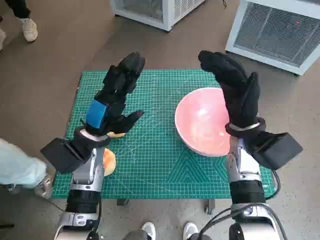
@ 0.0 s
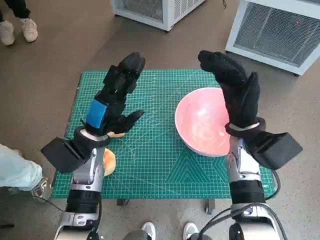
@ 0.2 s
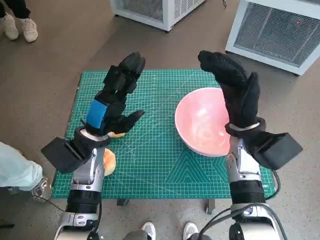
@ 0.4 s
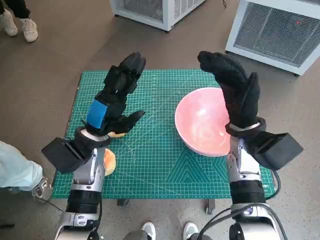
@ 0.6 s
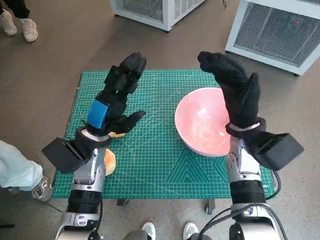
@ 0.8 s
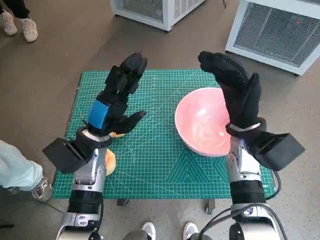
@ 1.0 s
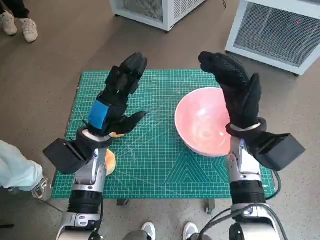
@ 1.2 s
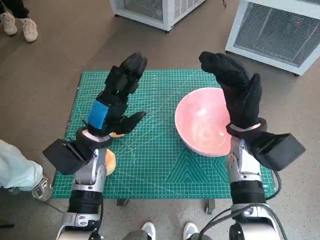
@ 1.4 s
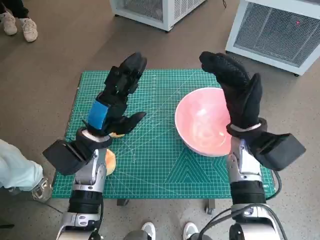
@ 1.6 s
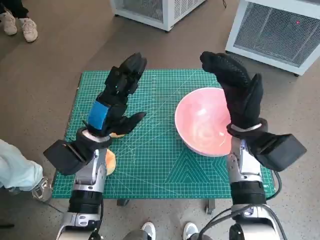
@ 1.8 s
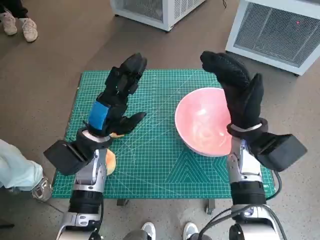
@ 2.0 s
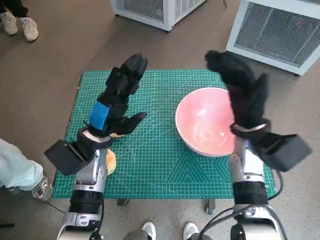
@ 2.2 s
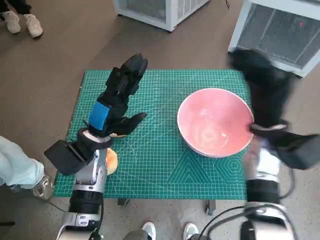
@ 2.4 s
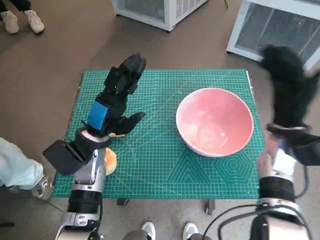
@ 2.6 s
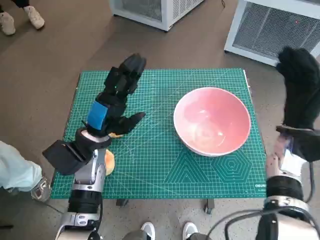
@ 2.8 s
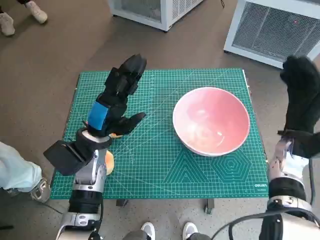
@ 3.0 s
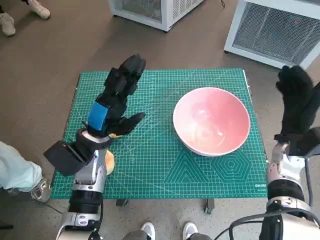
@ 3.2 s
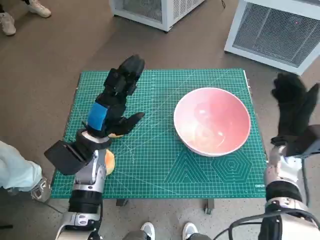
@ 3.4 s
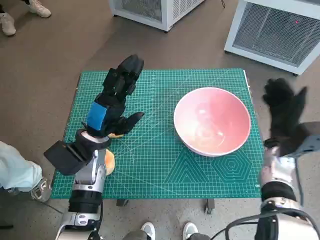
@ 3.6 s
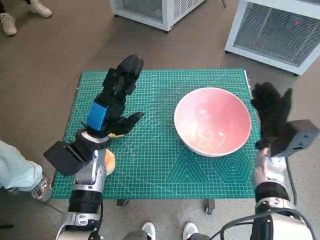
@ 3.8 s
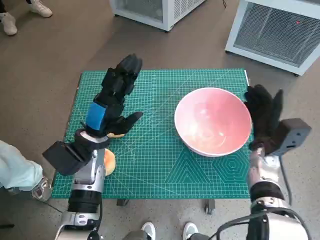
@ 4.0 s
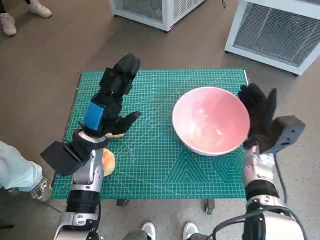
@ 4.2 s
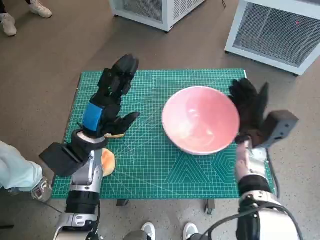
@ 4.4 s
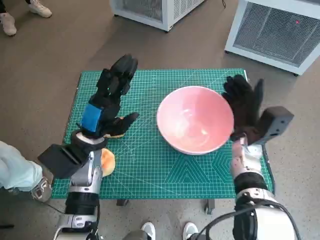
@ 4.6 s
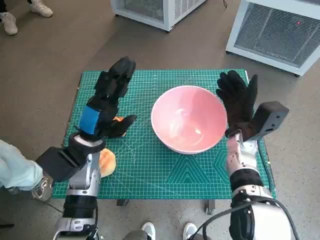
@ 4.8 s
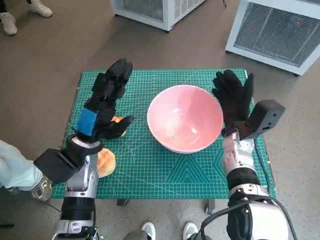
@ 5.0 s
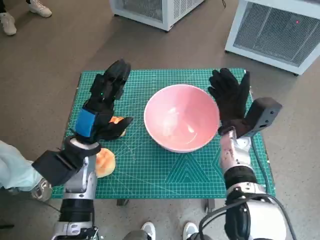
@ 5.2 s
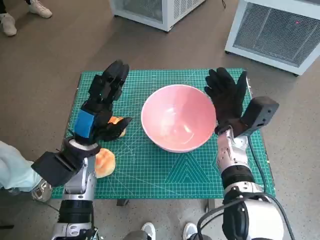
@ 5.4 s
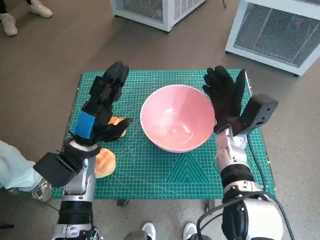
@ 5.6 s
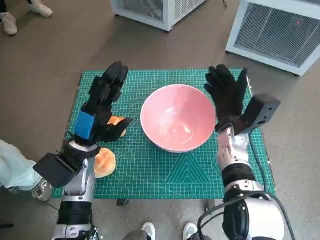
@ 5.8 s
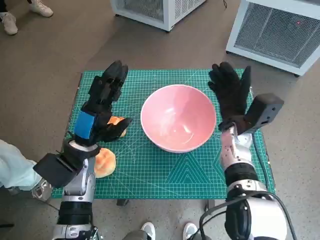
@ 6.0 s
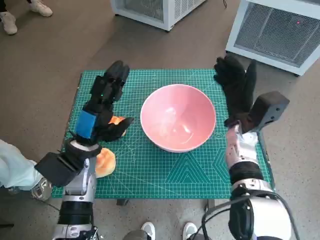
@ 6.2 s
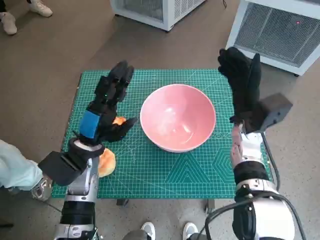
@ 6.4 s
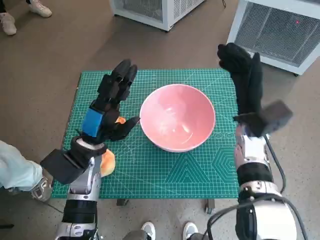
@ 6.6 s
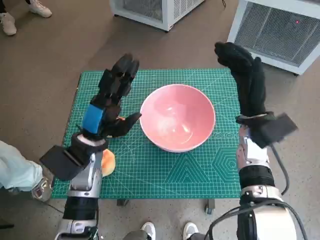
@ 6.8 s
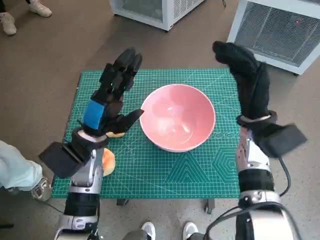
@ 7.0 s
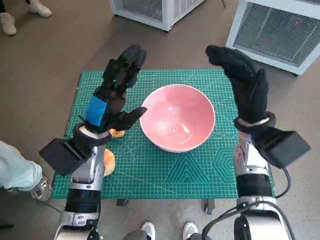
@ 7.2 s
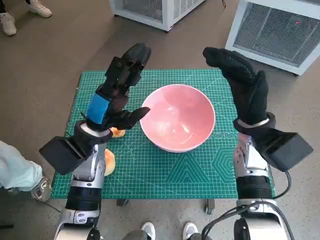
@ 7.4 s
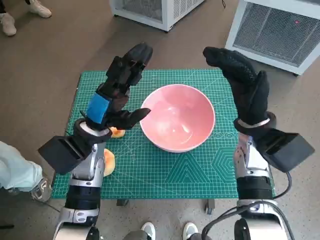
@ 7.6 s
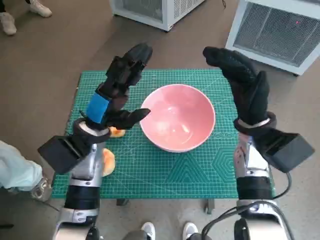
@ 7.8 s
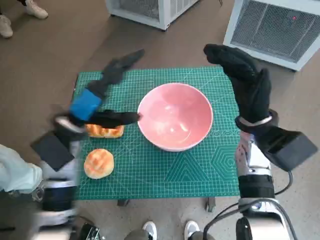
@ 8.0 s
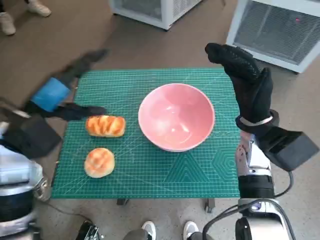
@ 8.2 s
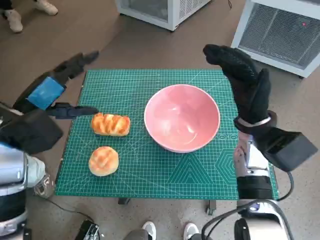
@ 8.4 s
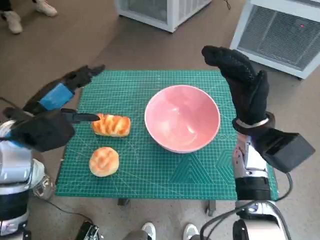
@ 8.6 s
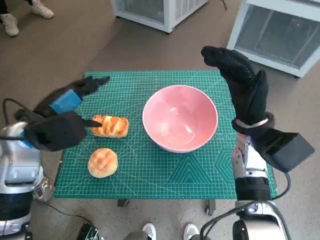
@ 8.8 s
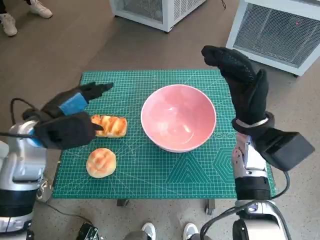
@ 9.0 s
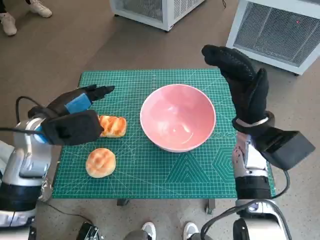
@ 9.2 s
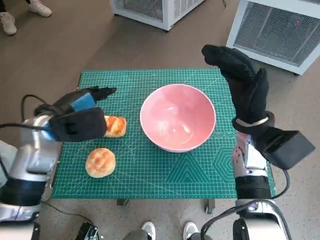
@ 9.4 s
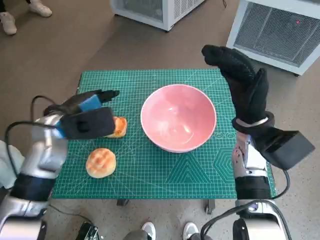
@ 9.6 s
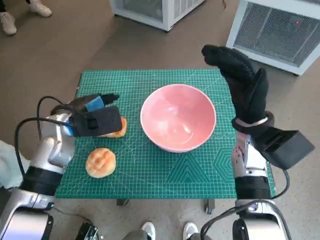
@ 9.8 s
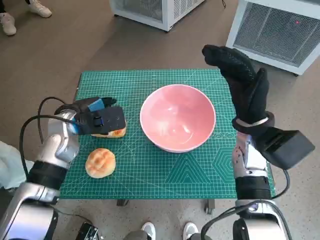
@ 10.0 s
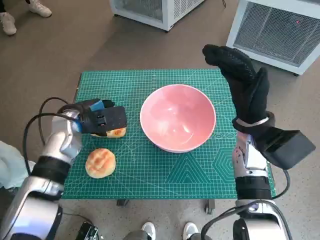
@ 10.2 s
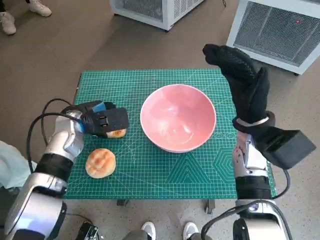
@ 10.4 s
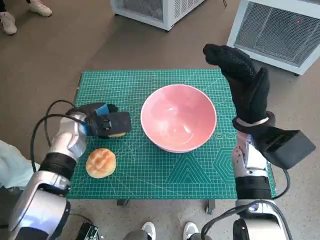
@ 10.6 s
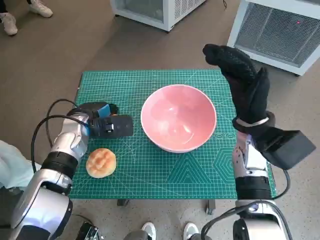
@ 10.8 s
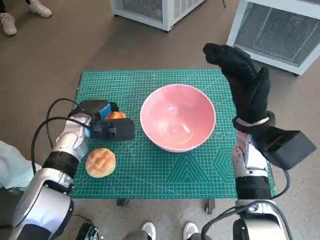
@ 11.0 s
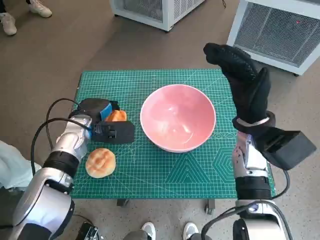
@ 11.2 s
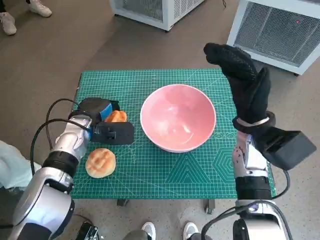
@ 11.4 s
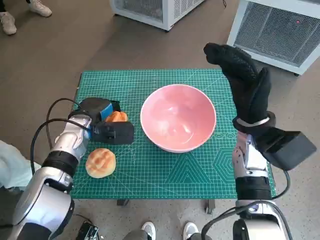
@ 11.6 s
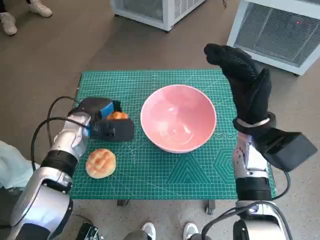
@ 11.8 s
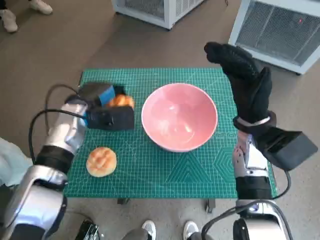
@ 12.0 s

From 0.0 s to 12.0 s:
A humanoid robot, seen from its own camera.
Task of the whole recording: Push the bowl into the center of the table and put the bread into the bowl.
Step, from 0.0 s to 5.8 s: Move the pink bowl to the center of table with right hand.
Step, from 6.0 s to 10.8 s: Grasp the long bread with left hand.
From 1.6 s to 3.0 s: The right hand is displaced to the right by approximately 10 cm.
From 3.0 s to 4.4 s: The right hand is displaced to the left by approximately 5 cm.
From 4.4 s to 6.0 s: The right hand ends up roughly 5 cm from where it was.
From 6.0 s to 7.6 s: The right hand heads upward, covering some 5 cm.
From 7.6 s to 9.0 s: The left hand heads to the left, covering about 10 cm.
From 9.0 s to 10.4 s: The left hand travels downward and forward by roughly 10 cm.

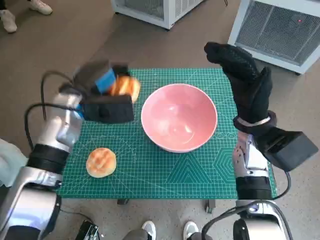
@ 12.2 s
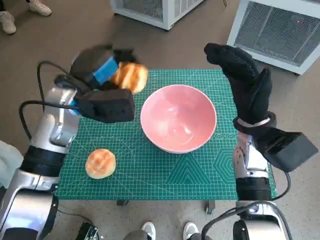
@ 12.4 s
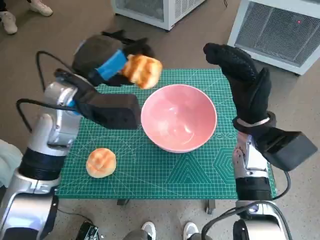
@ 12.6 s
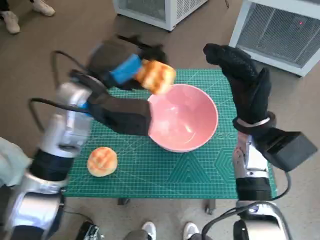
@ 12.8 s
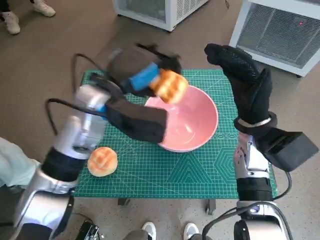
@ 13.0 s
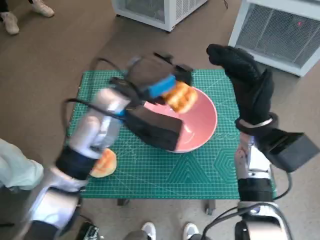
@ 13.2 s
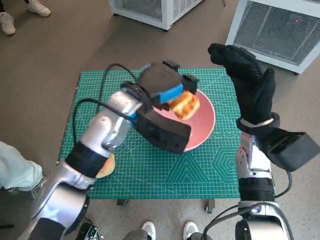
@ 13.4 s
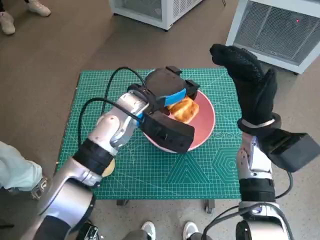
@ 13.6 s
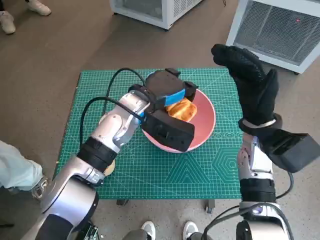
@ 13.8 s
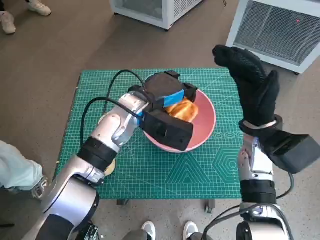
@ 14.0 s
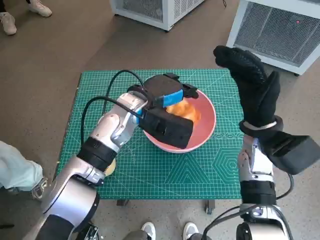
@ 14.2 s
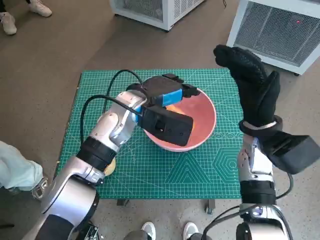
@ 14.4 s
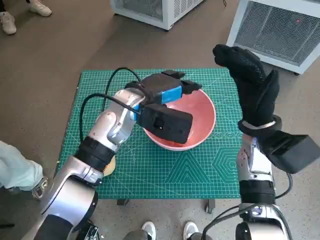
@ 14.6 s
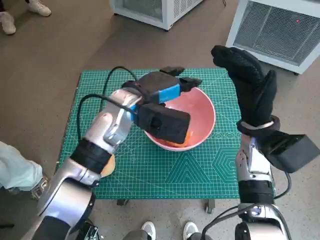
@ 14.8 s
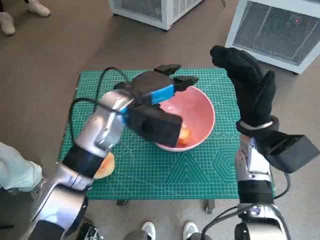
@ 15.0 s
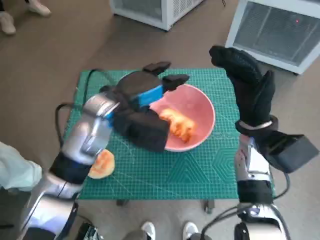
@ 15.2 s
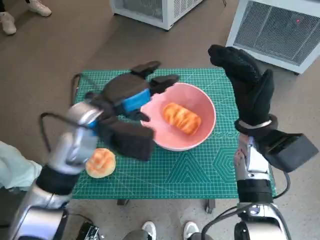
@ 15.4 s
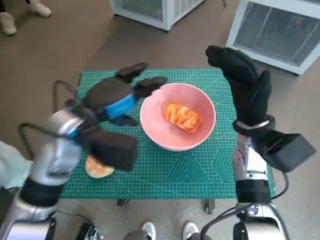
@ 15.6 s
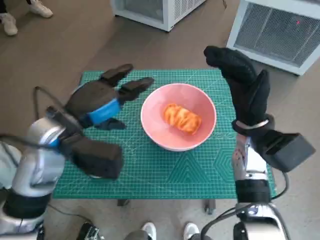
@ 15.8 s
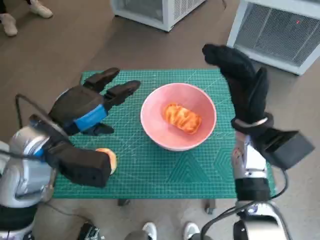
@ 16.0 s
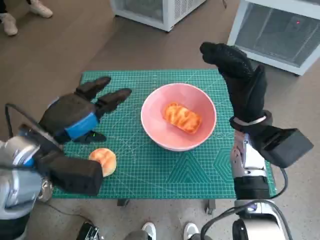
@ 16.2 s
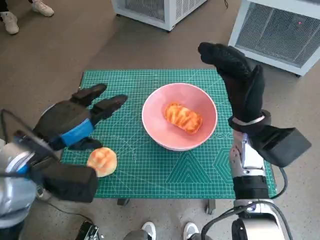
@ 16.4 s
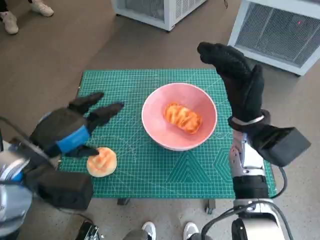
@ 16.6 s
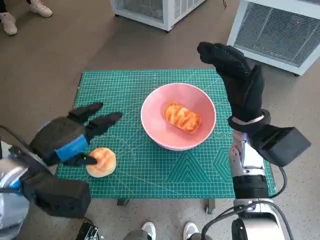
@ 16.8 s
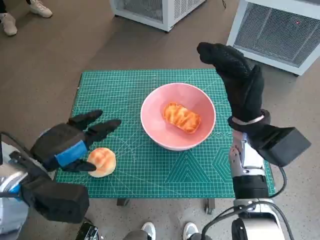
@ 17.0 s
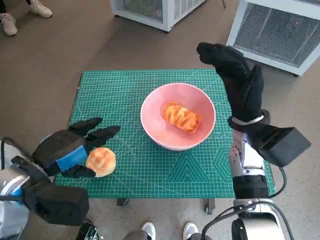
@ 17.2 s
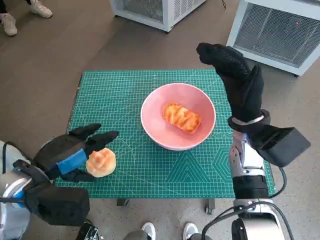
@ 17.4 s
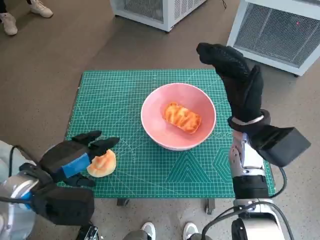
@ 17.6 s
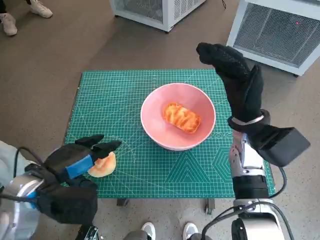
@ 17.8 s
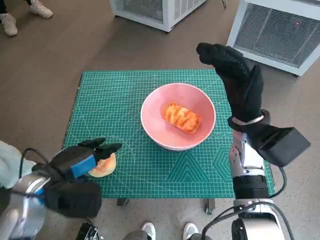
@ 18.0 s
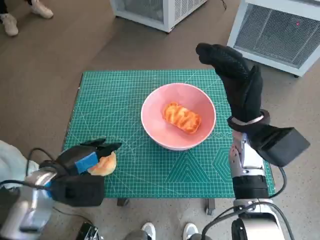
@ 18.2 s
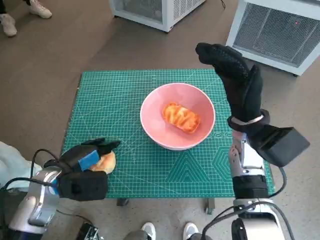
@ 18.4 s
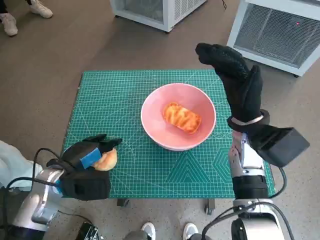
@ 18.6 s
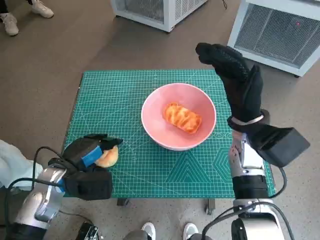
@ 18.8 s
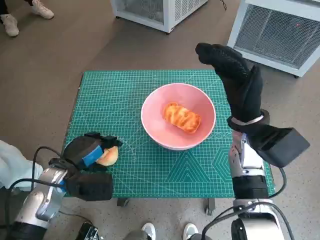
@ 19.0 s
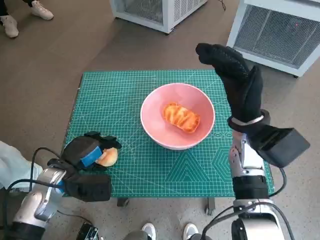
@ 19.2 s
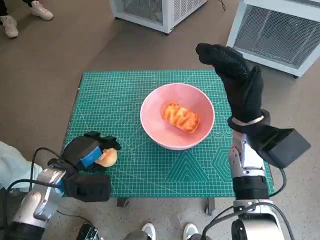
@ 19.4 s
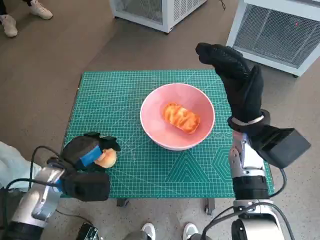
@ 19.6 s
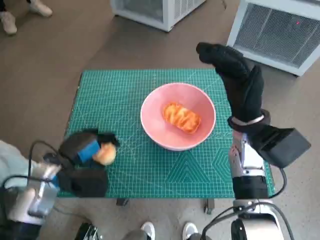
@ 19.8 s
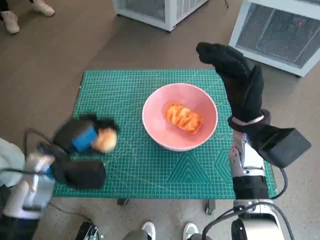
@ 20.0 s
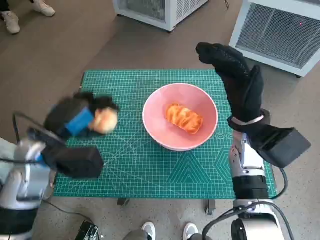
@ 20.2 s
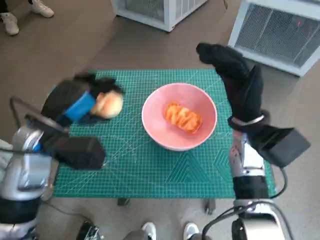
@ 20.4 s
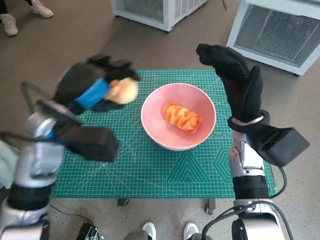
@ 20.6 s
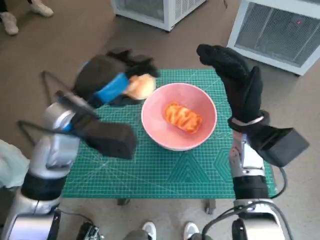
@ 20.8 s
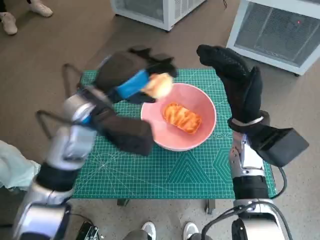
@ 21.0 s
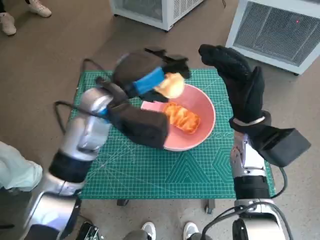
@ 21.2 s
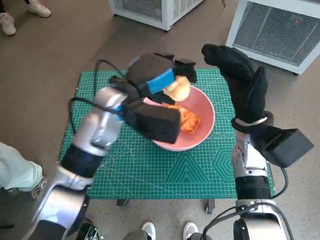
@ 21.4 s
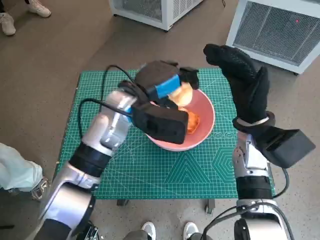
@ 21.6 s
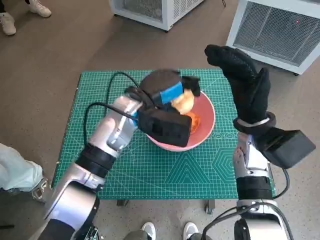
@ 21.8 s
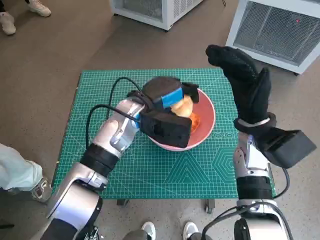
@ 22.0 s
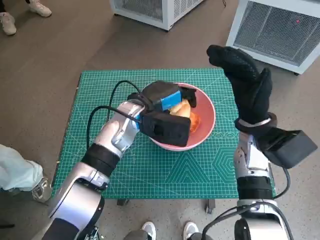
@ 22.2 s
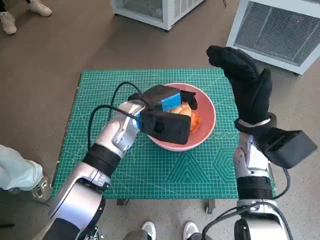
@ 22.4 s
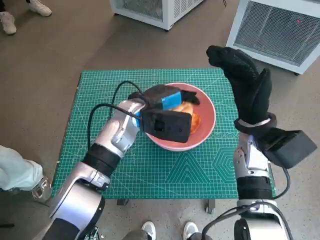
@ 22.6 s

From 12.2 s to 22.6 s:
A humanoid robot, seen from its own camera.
Task of the whole recording: Push the bowl into the center of the table and put the bread into the bowl.
Step, from 12.2 s to 14.4 s: Place the long bread in pink bowl with left hand.
Step, from 14.6 s to 19.2 s: Grasp the round bread with left hand.
From 12.2 s to 13.6 s: The left hand is displaced to the right by roughly 10 cm.
From 15.2 s to 16.6 s: The left hand is displaced to the left and backward by approximately 15 cm.
From 16.6 s to 18.2 s: The left hand goes approximately 10 cm downward.
From 18.2 s to 19.6 s: There are only small adjustments of the hands.
From 19.6 s to 21.2 s: The left hand heads upward, to the right and forward, covering about 20 cm.
From 21.2 s to 22.6 s: The left hand travels downward by some 5 cm.
